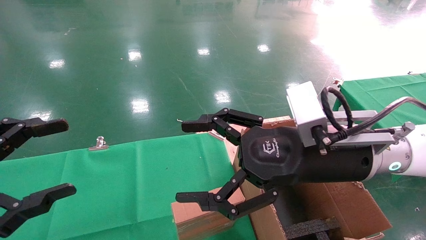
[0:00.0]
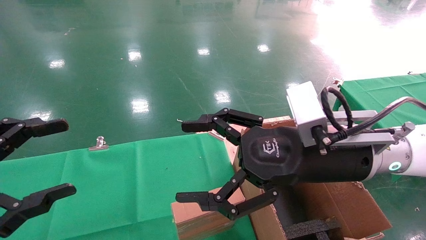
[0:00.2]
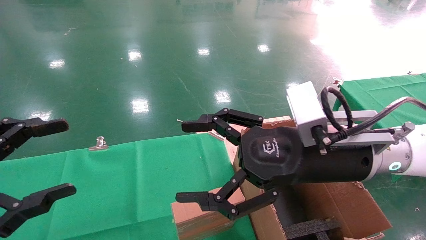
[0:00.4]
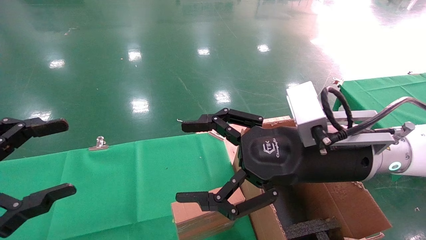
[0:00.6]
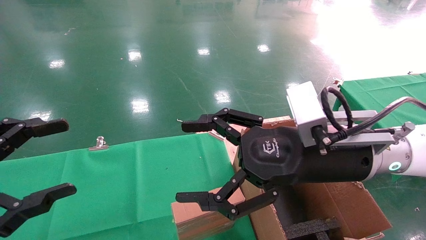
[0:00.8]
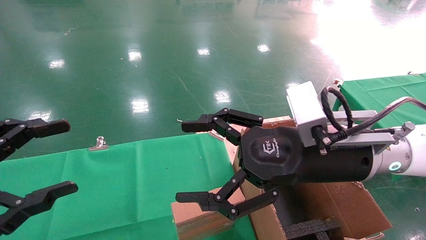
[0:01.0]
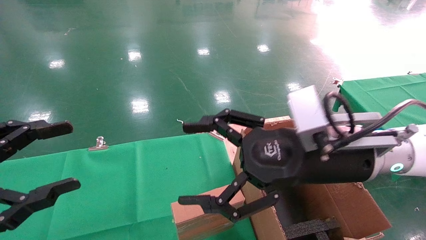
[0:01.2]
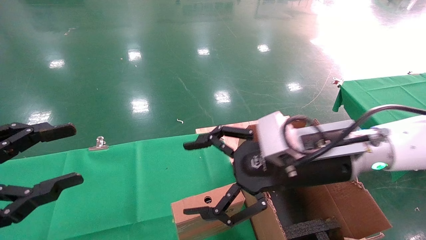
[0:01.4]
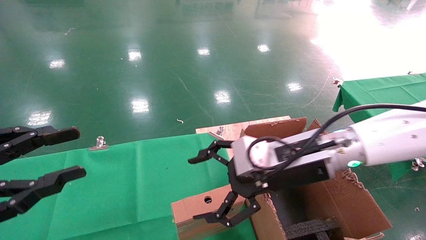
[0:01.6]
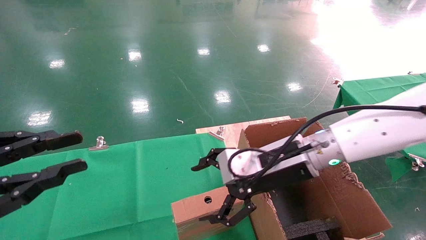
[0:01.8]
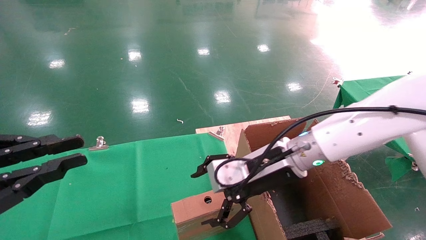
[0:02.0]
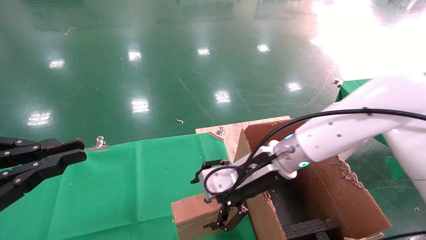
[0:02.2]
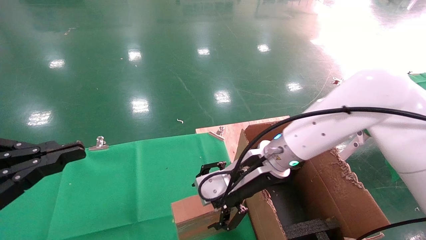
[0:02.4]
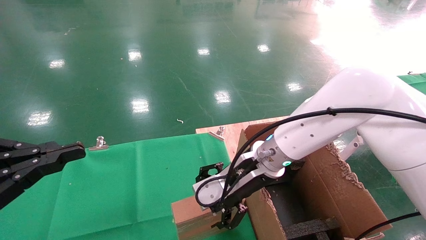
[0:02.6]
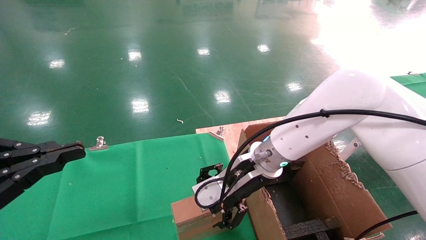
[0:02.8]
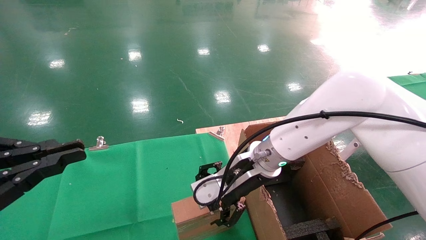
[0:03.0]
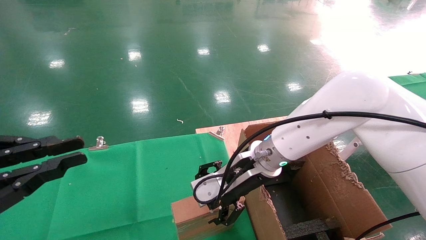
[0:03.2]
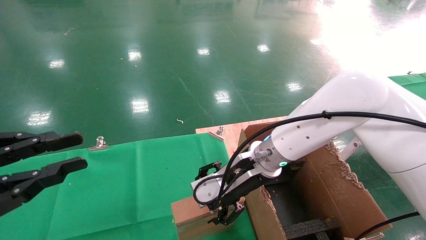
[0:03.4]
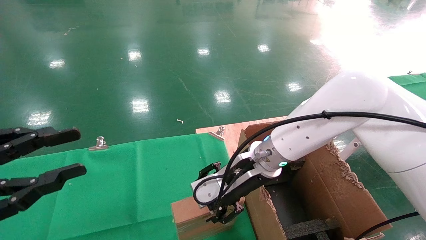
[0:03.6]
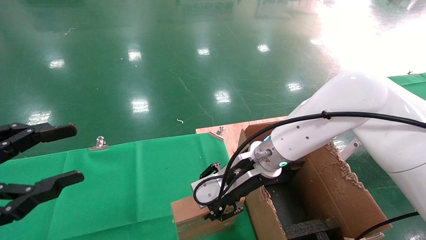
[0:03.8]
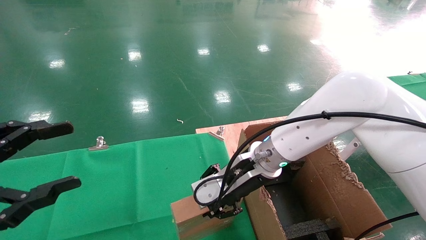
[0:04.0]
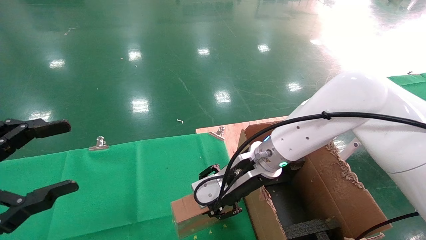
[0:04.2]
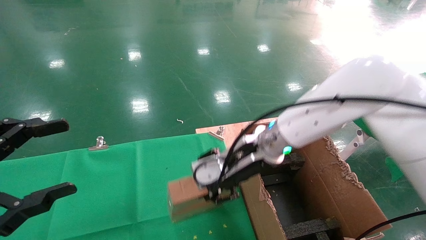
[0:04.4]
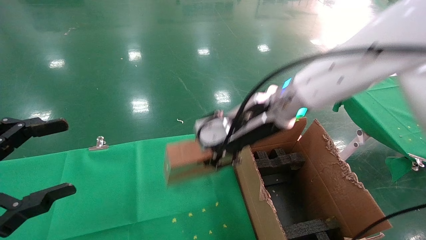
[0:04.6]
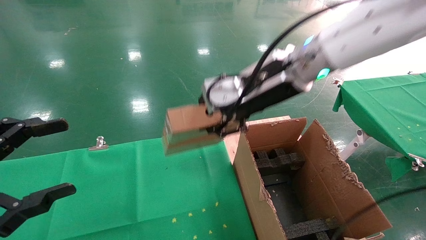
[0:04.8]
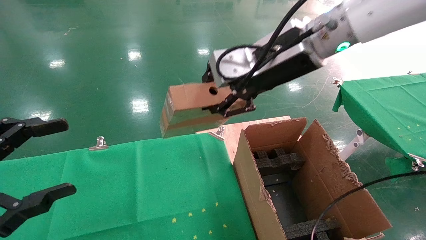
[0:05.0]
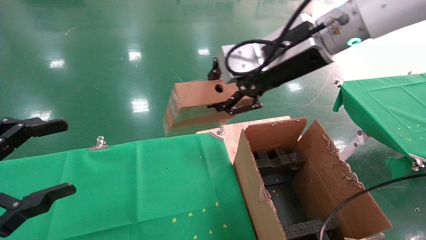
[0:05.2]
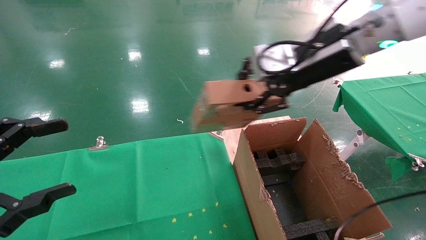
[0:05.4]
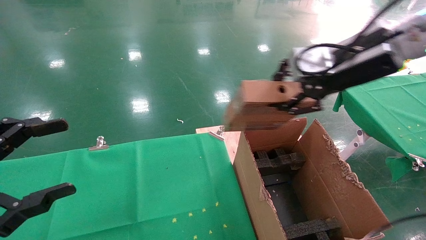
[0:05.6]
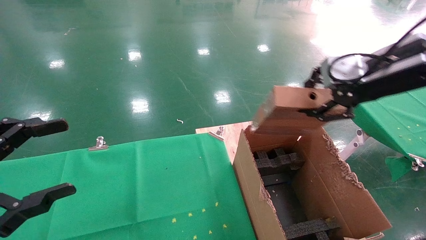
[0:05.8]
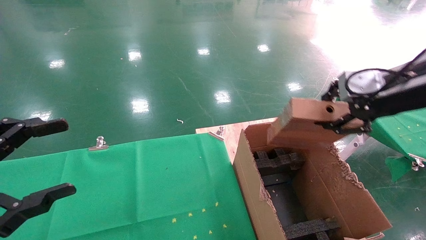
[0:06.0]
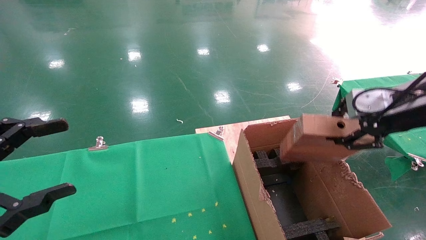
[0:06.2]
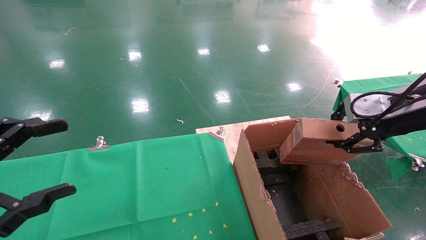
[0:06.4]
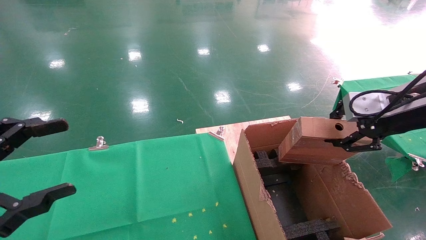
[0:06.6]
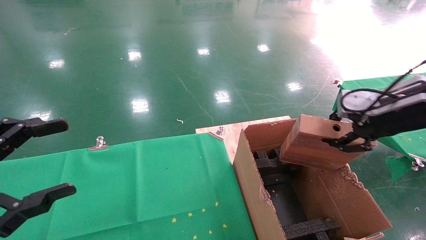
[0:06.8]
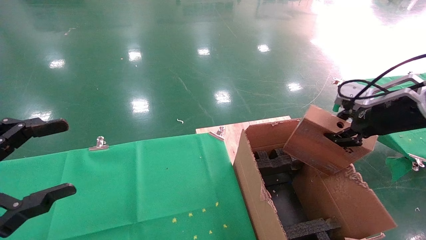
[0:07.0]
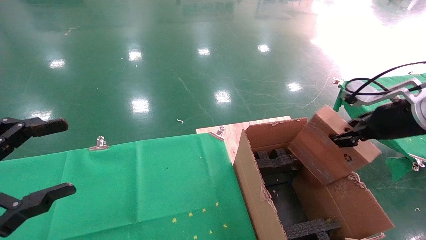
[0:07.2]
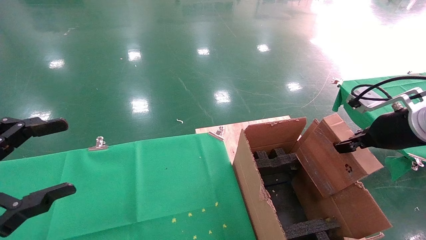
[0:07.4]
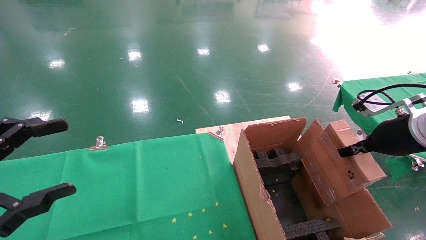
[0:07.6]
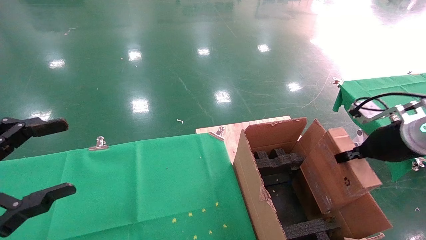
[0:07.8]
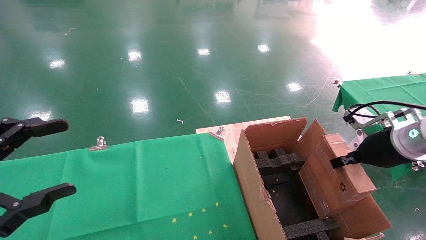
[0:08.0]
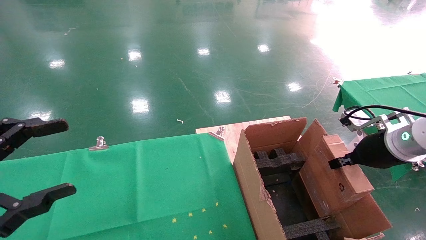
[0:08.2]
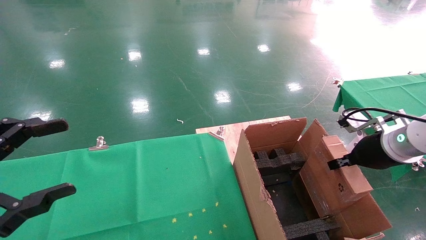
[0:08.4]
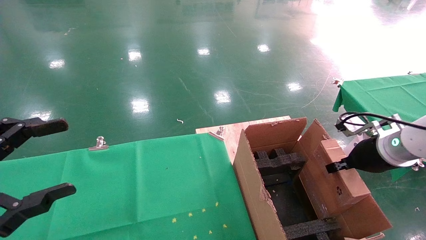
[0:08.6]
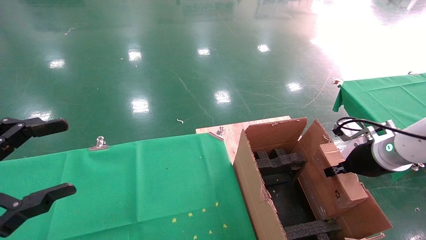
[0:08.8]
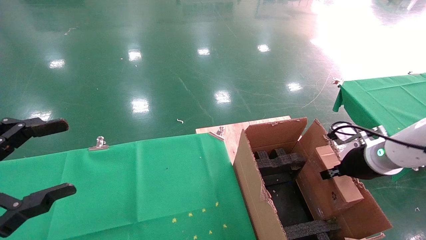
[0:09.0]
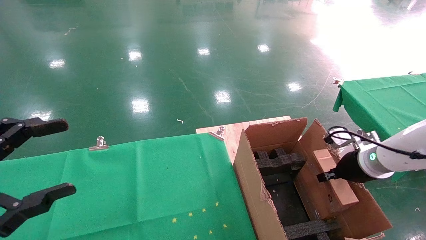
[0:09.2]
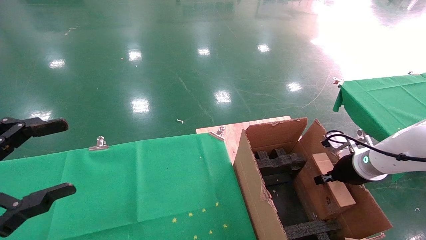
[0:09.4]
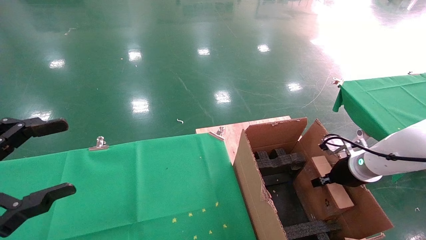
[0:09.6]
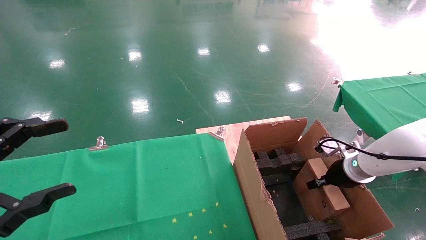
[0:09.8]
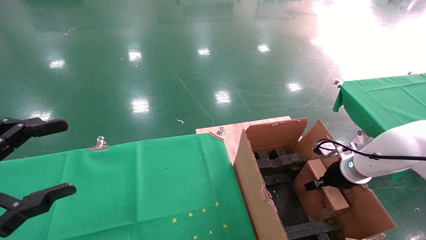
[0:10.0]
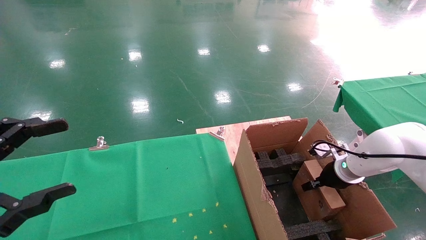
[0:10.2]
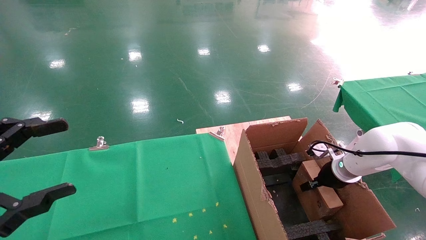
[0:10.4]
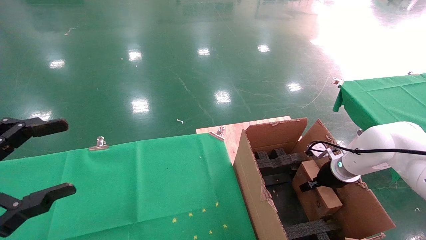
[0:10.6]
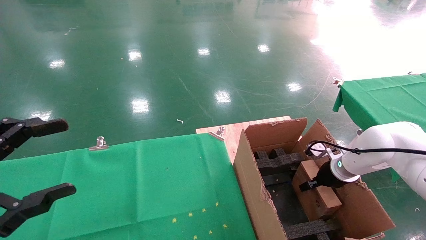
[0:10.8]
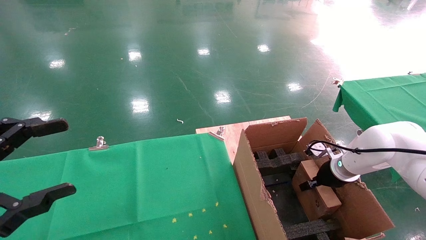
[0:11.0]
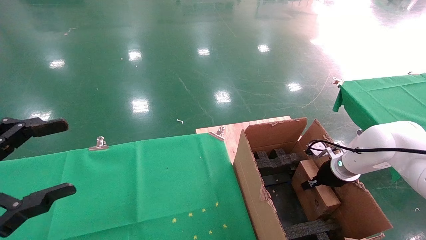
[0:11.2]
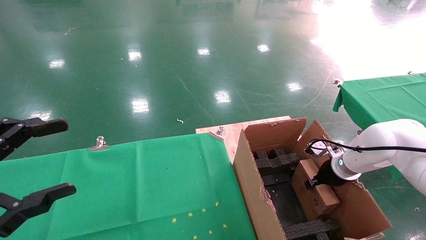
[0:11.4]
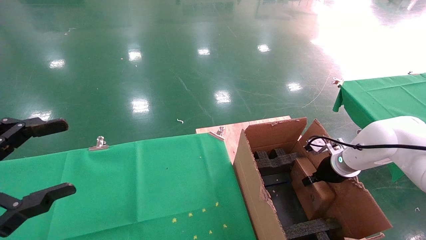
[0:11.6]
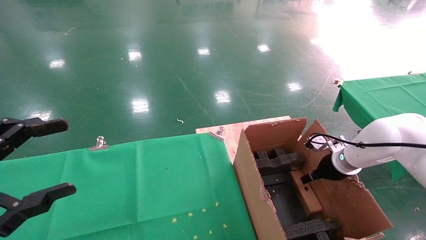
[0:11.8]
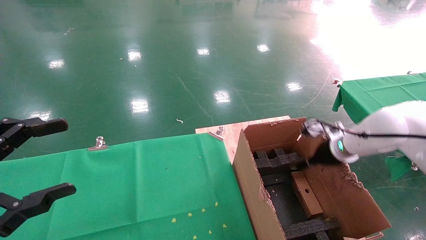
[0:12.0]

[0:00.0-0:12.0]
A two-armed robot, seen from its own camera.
Task of the whole recording: using a robotic arm to pick up a cardboard box and palace it the carton.
Step, 0:01.4 to 0:04.2: Pick up the mouse and the power cord paper box.
Step, 0:04.4 to 0:11.8: Place the mouse and the power cord paper box into the container.
0:00.0 to 0:01.6: The left gripper closes, while the right gripper shifts by approximately 5 cm.
0:01.6 to 0:03.0: The left gripper closes; the right gripper moves forward and to the left, some 10 cm.
0:03.0 to 0:04.4: The right gripper shifts about 5 cm upward, and closes, while the left gripper opens its fingers.
0:04.4 to 0:06.0: The right gripper travels to the right and upward by roughly 25 cm.
0:06.0 to 0:07.6: The right gripper moves downward, some 10 cm.
0:07.6 to 0:09.0: The right gripper moves downward, roughly 10 cm.
0:09.0 to 0:10.4: The right gripper moves downward and forward, roughly 10 cm.
0:10.4 to 0:12.0: The right gripper shifts some 10 cm upward, and opens its fingers.

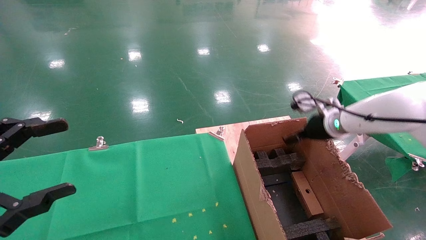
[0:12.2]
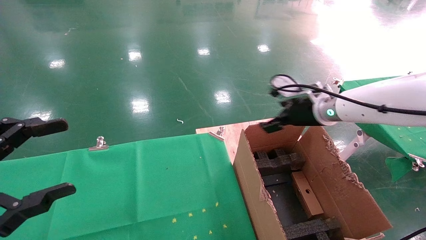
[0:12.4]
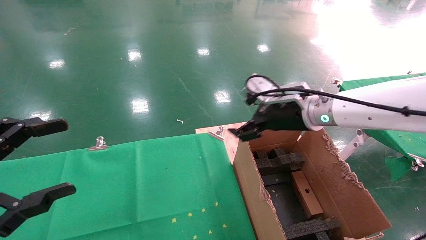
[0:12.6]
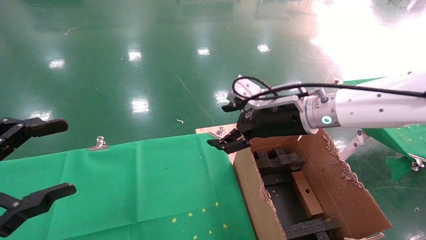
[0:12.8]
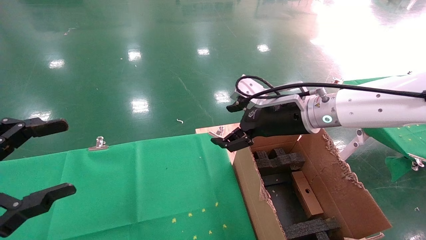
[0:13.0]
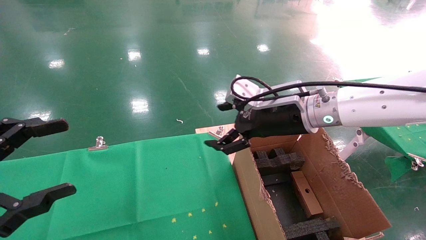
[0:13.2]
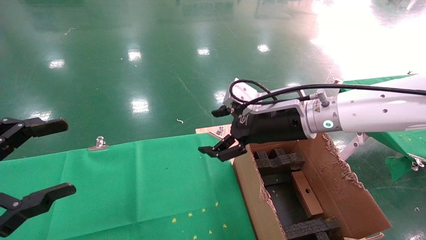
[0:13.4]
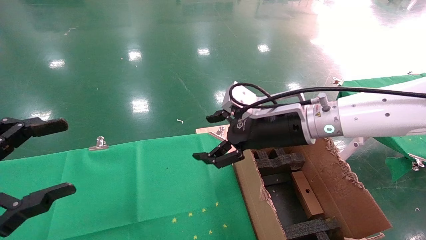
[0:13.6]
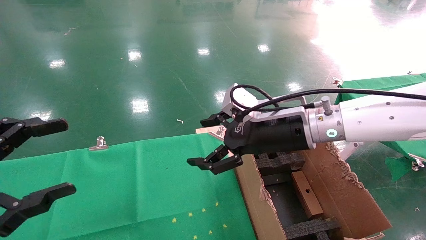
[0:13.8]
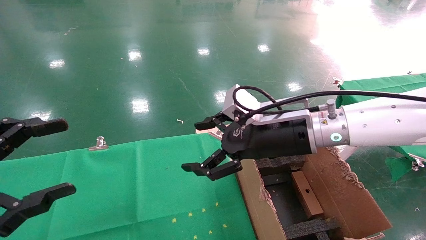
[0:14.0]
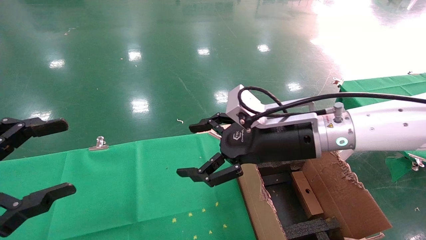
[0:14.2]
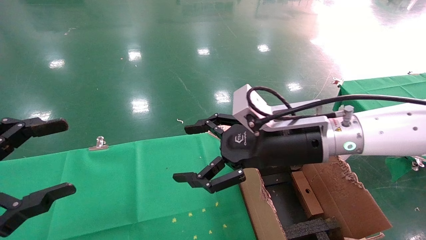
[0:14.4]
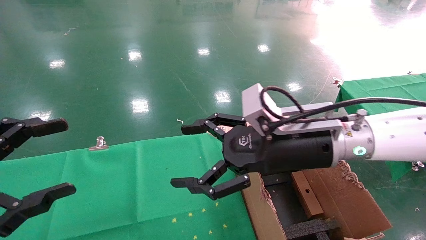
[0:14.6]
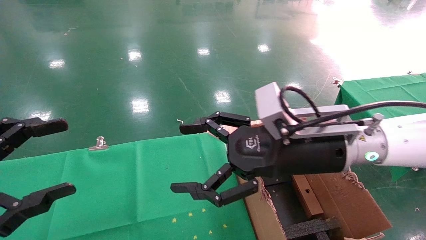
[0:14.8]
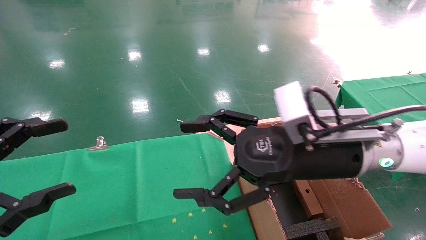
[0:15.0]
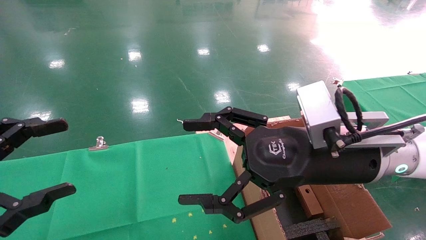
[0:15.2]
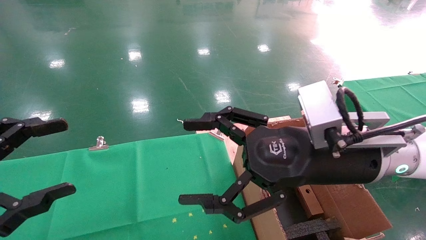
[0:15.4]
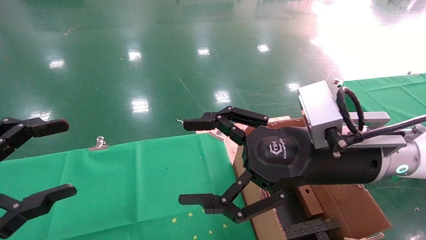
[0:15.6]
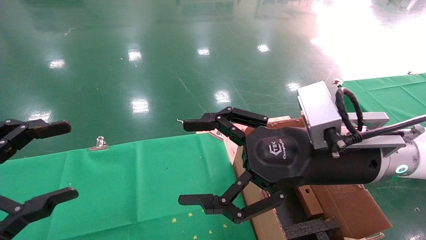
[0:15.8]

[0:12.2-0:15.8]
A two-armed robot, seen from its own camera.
Task of the whole recording: using a robotic arm to pick up a cardboard box and palace it the carton.
0:12.2 to 0:14.0: The right gripper shifts some 20 cm to the left and backward.
0:14.0 to 0:15.8: The right gripper travels backward by some 10 cm.

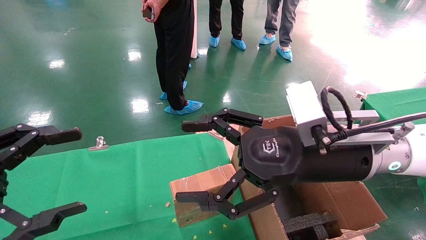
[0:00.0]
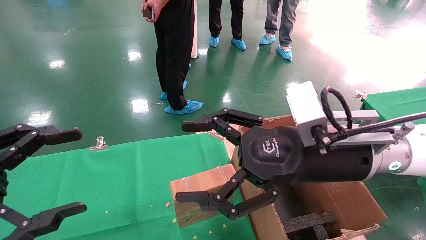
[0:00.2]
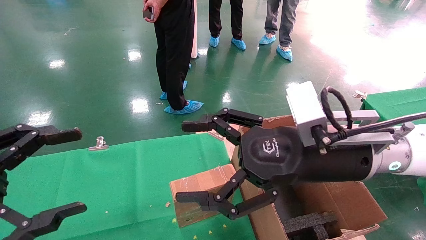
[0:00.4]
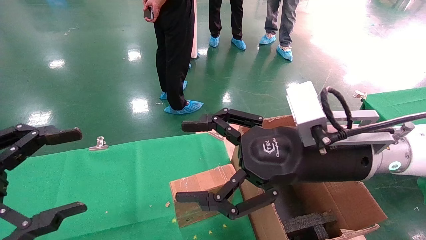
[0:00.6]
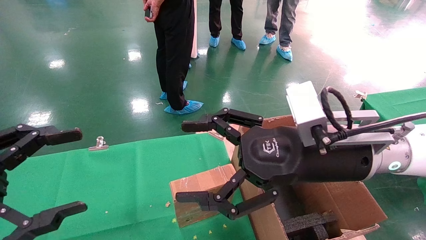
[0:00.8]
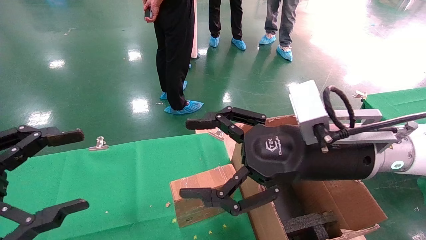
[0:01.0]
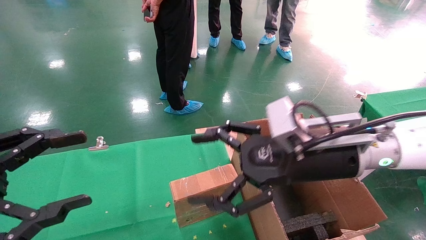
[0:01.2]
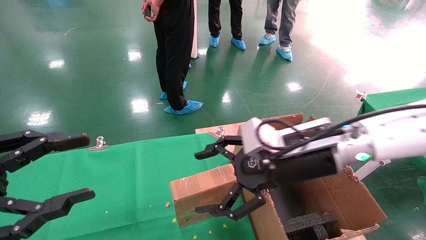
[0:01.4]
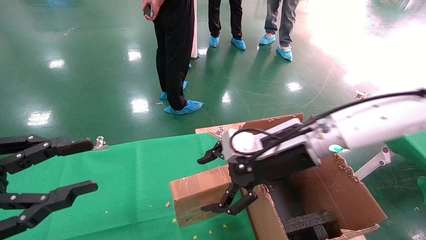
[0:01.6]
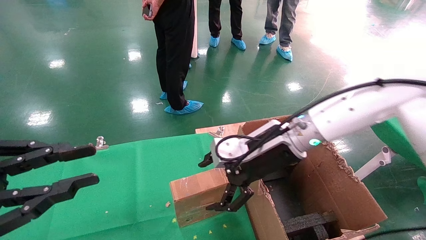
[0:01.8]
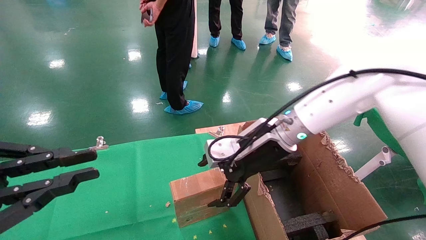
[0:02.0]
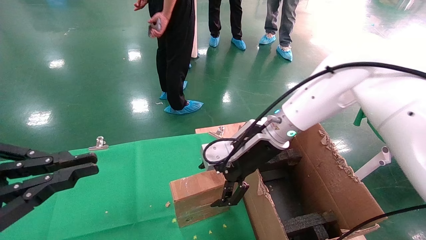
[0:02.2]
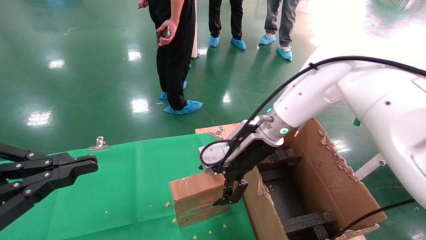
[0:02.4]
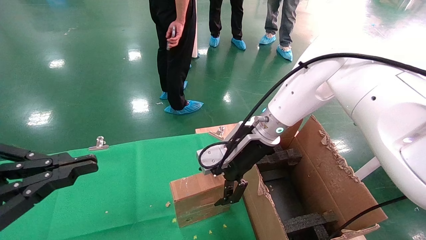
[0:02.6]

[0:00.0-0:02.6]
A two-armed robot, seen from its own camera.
Task of the whole recording: using a robotic arm to pick up a cardboard box and palace it the carton.
0:00.0 to 0:01.2: There are only small adjustments of the grippers.
0:01.2 to 0:02.6: The left gripper closes up, while the right gripper travels forward by some 15 cm.
